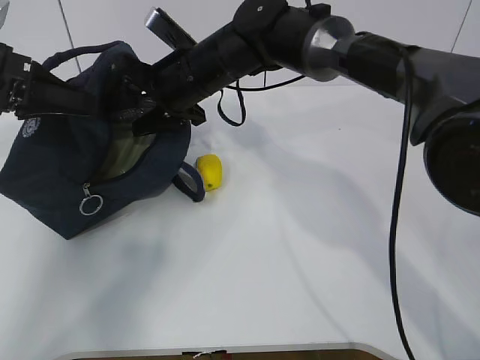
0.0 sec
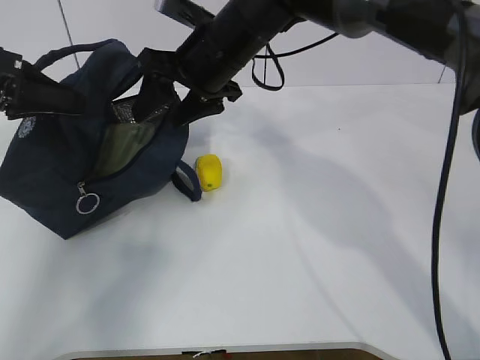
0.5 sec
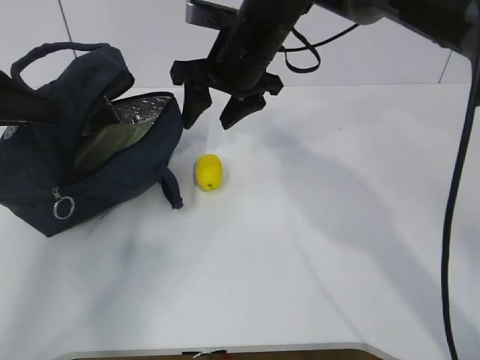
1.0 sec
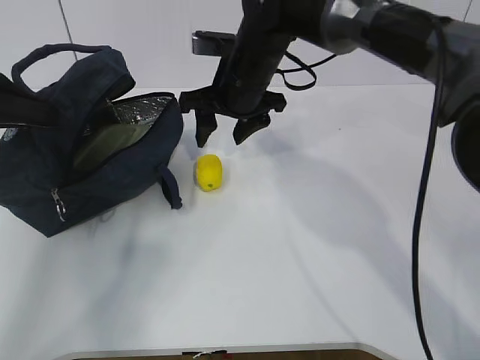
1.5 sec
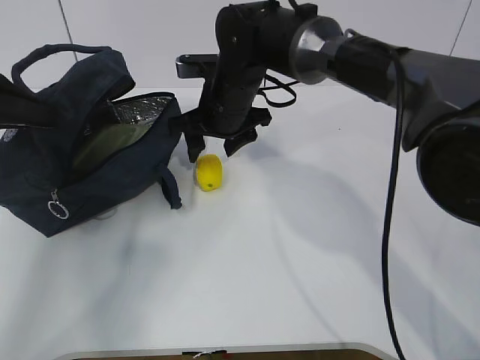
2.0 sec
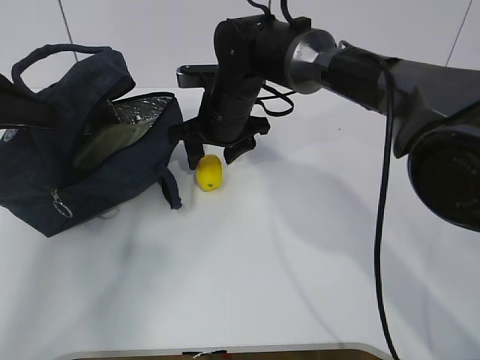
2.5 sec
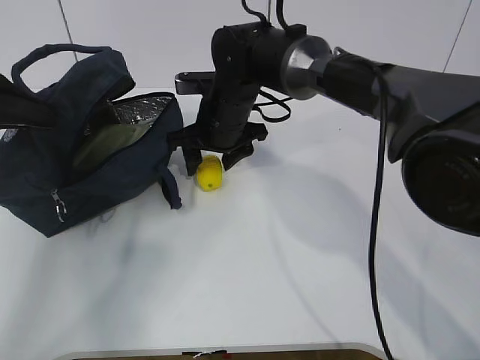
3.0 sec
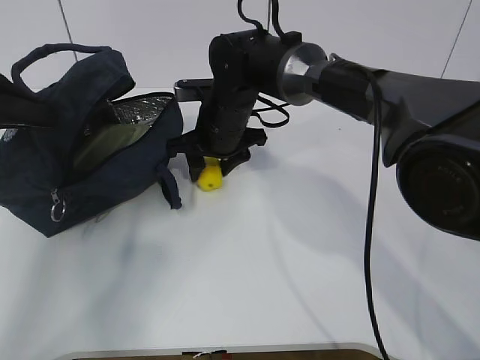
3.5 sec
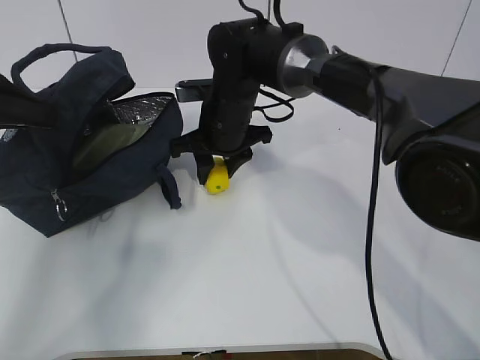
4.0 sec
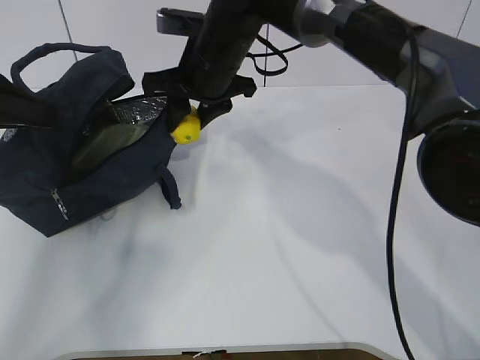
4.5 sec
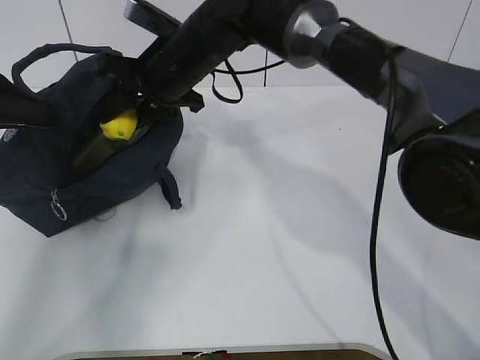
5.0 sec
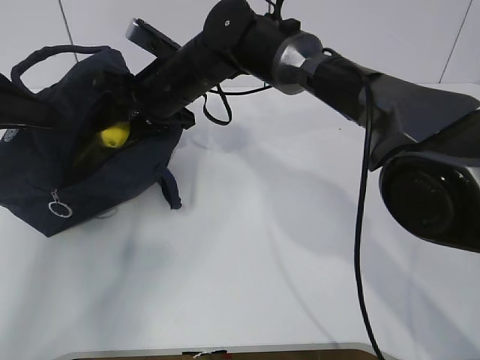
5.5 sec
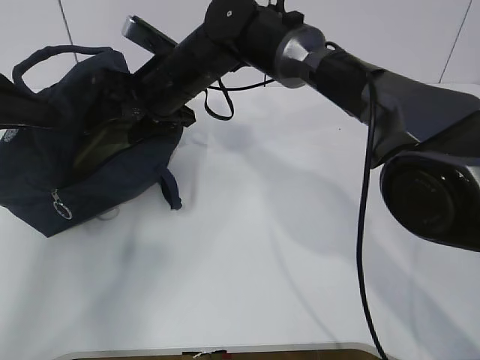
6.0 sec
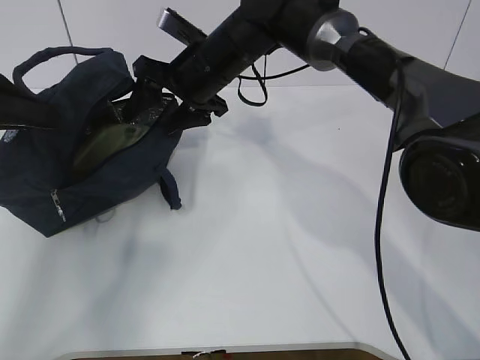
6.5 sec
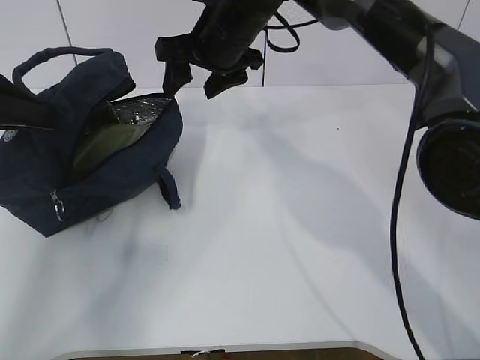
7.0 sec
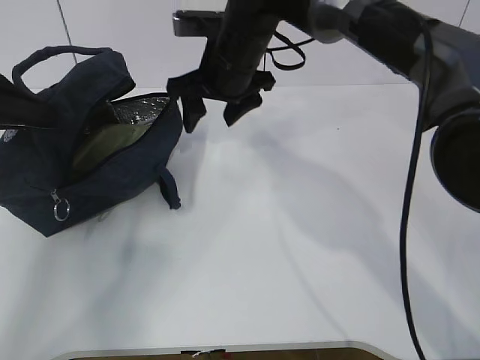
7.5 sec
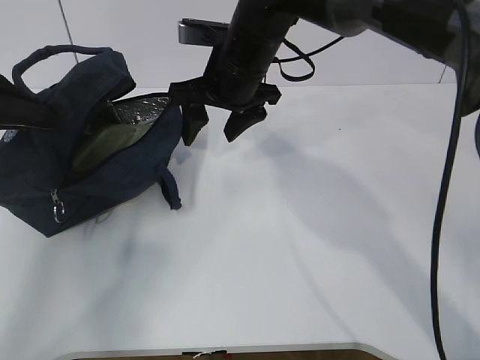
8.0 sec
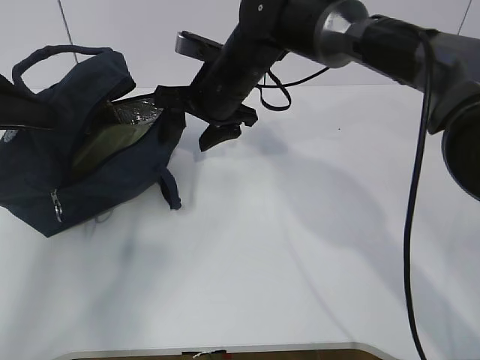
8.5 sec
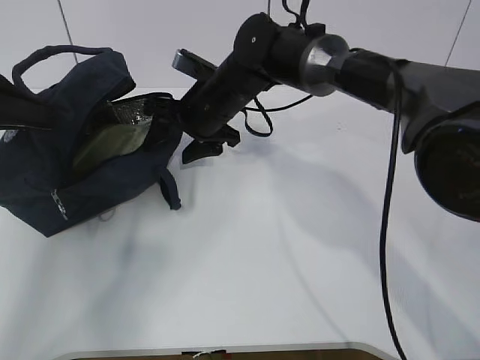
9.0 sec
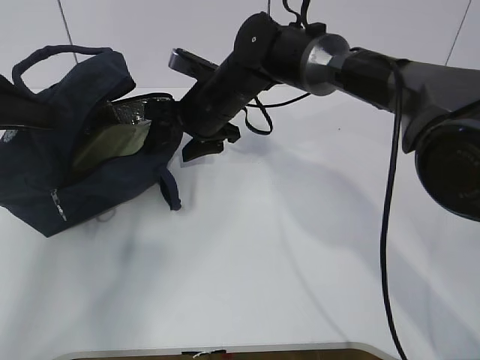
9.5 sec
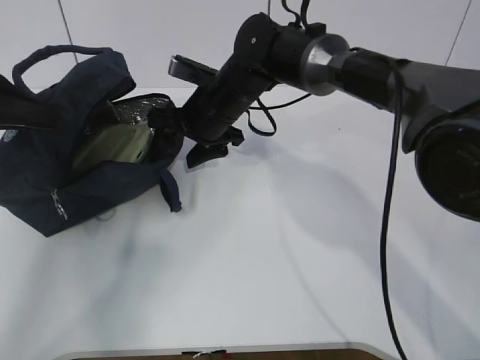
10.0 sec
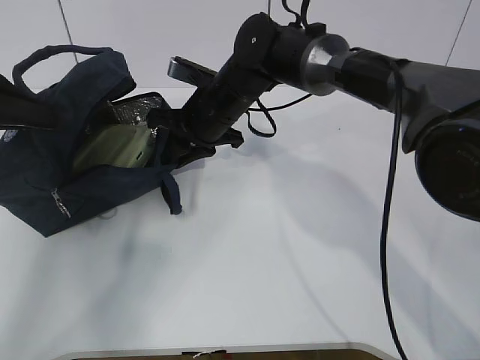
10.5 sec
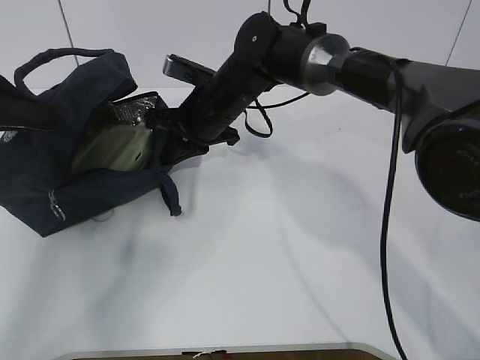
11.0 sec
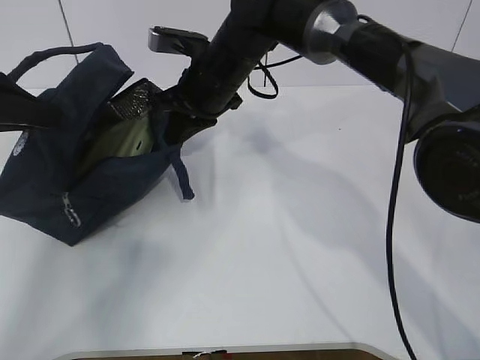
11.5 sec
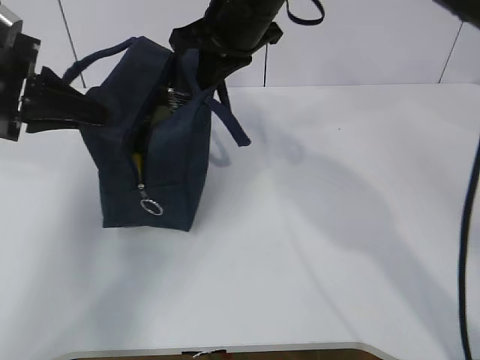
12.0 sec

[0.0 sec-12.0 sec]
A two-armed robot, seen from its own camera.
Step, 0.0 sec to 4.0 sec: Grab the lunch bag with your right hand.
Step, 4.5 sec to 6.5 sec: Stand the lunch bag upright with your right hand.
2.0 sec to 4.0 sec: There are only small adjustments of the grippers.
4.0 sec to 6.0 sec: The right gripper moves to the left and upward, some 5 cm, and opens its fingers.
6.0 sec to 8.0 sec: The right gripper is displaced to the right by some 5 cm.
8.0 sec to 10.0 sec: The right gripper heads downward, covering some 5 cm.
10.0 sec to 12.0 sec: The right gripper goes about 15 cm upward, and closes up, while the left gripper heads to the right, covering some 5 cm.

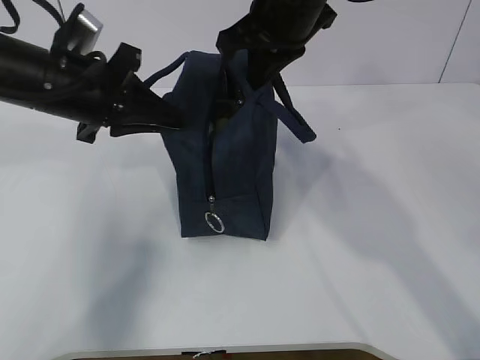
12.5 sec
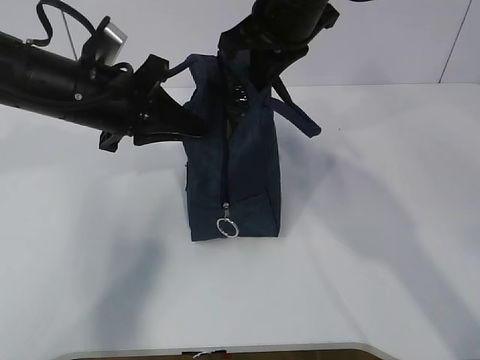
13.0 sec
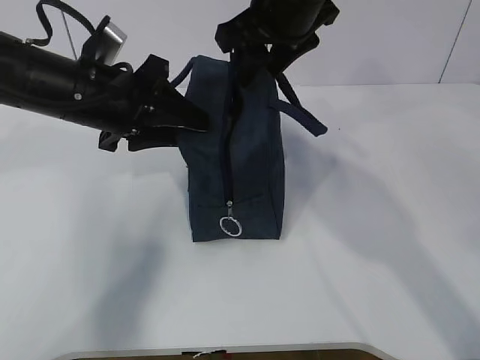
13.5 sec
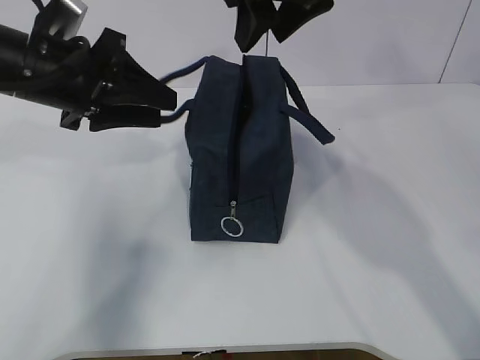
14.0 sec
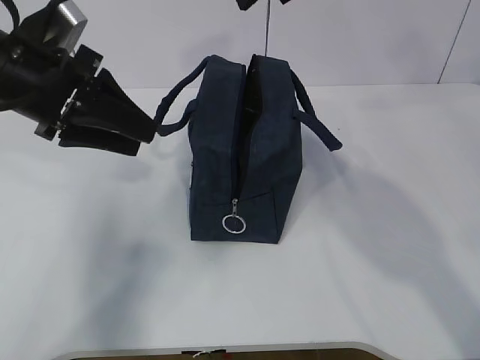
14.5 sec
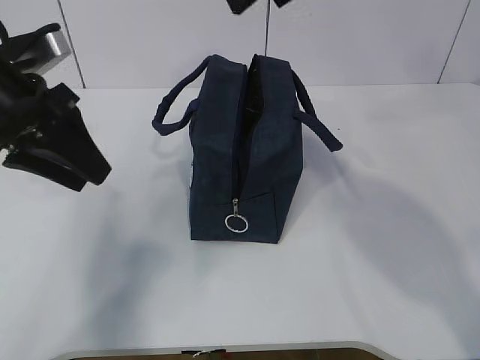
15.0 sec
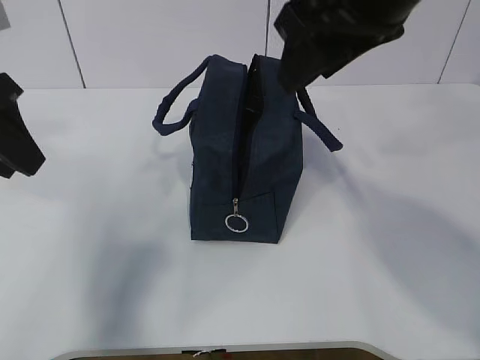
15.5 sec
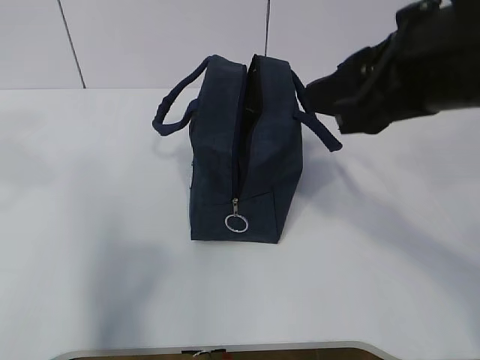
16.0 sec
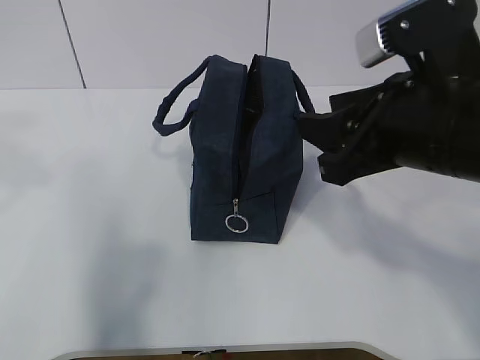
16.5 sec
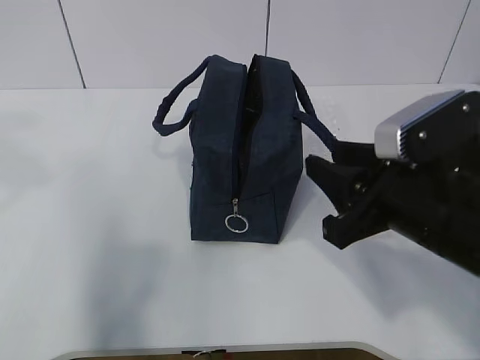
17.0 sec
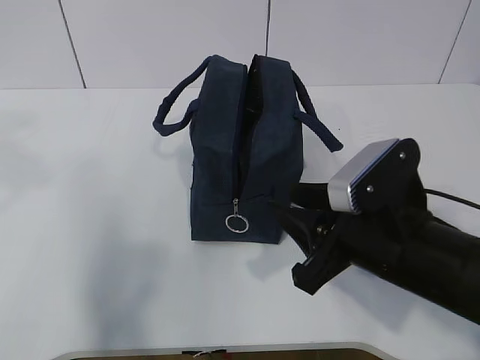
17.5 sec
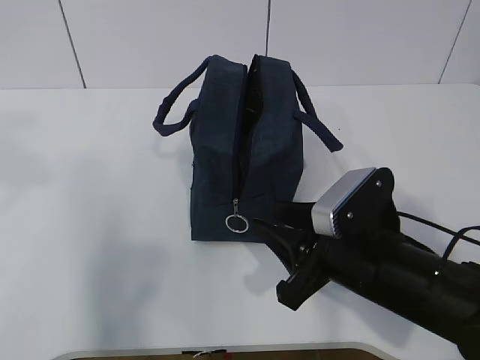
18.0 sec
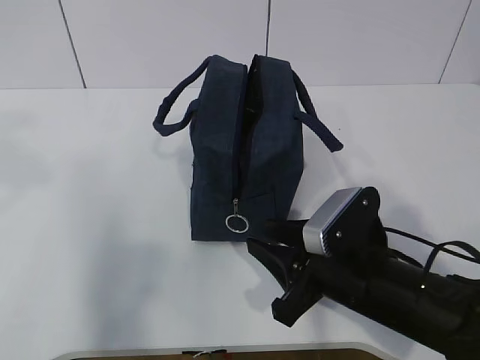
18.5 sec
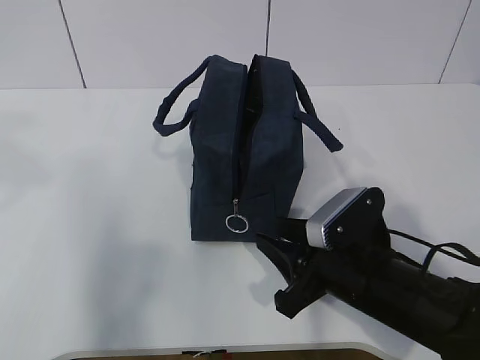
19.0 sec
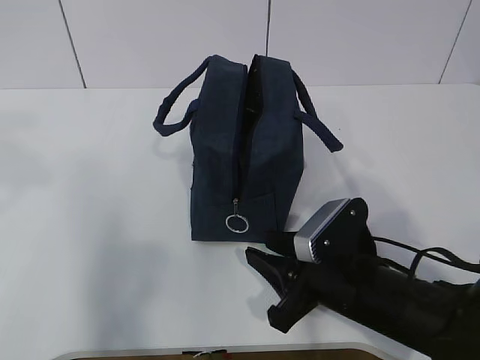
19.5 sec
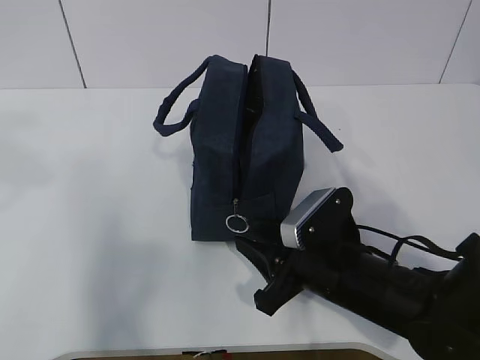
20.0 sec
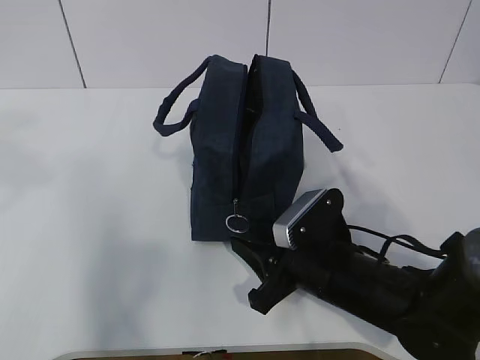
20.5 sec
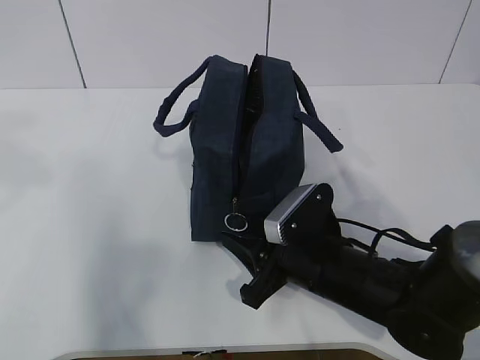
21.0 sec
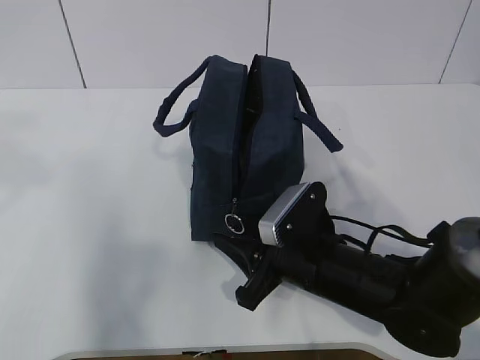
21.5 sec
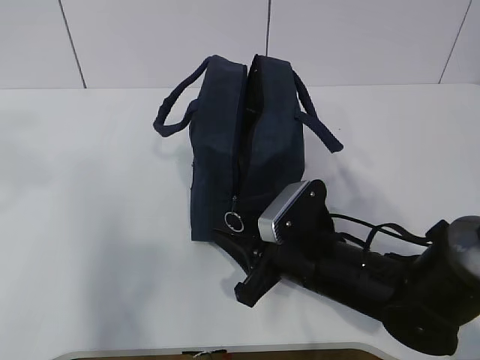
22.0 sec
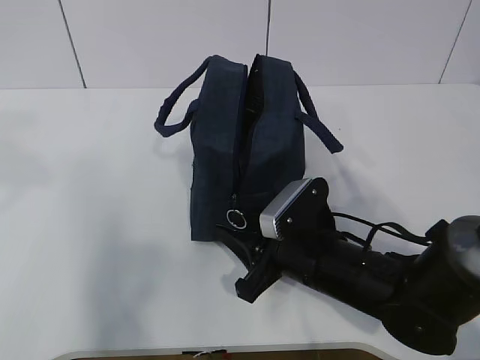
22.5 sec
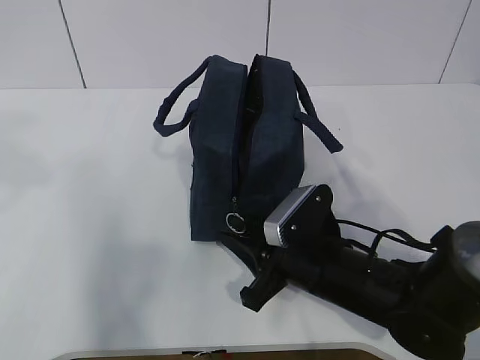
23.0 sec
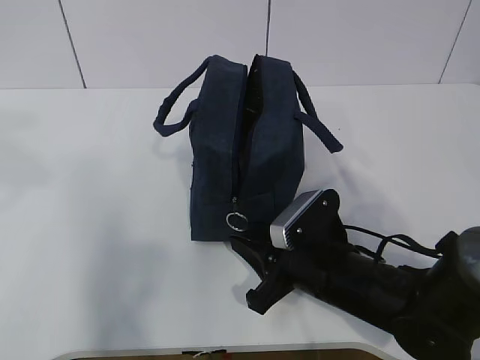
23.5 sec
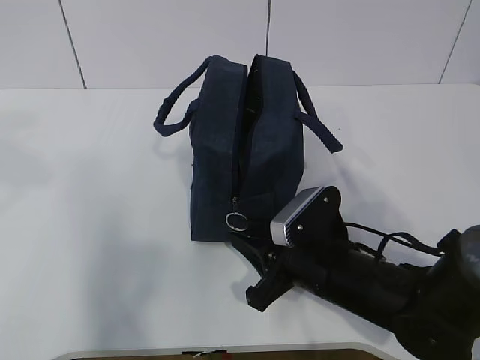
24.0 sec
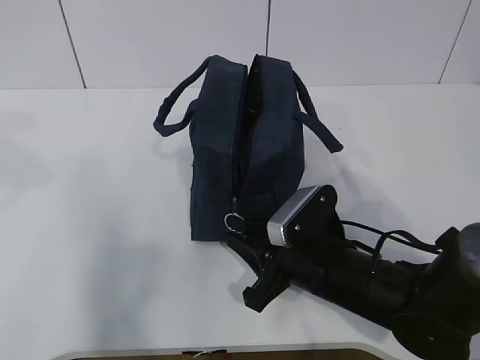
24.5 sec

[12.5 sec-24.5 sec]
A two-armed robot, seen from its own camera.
12.5 sec to 14.5 sec: The left gripper opens its fingers; the right gripper shifts some 10 cm upward, and opens its fingers.
14.5 sec to 16.5 sec: The left gripper shifts about 20 cm backward, upward and to the left. The right gripper shifts approximately 20 cm downward, backward and to the right.
16.5 sec to 18.5 sec: The right gripper heads downward, covering roughly 15 cm.
18.5 sec to 24.5 sec: The grippers move only a little.

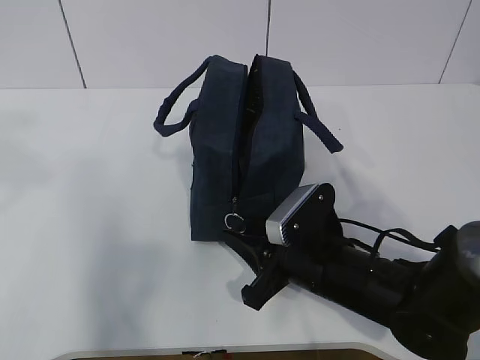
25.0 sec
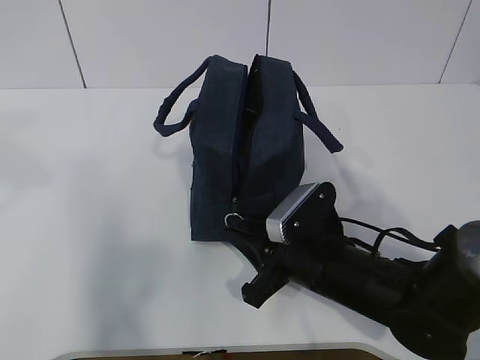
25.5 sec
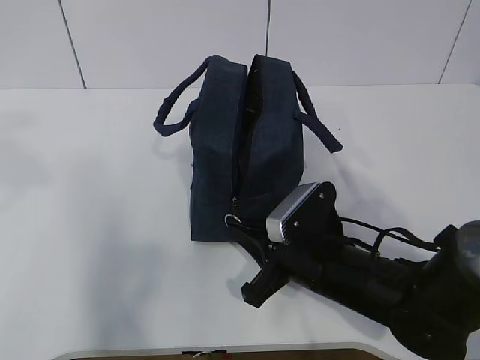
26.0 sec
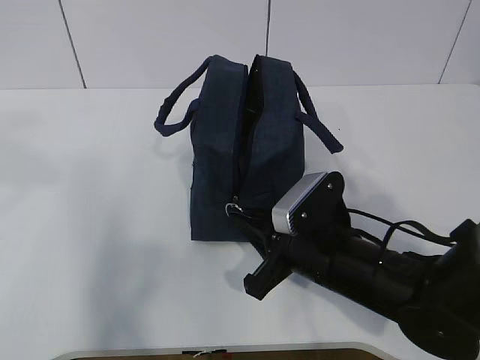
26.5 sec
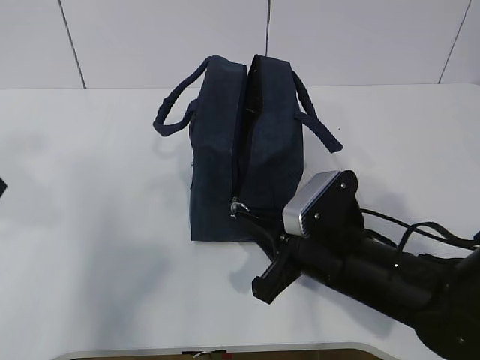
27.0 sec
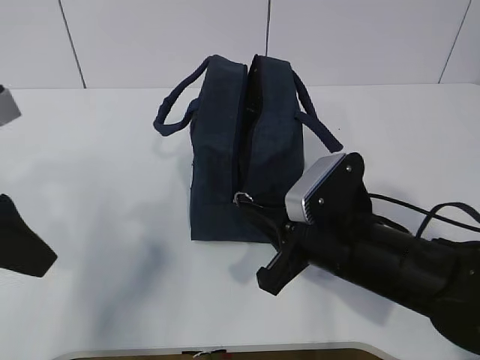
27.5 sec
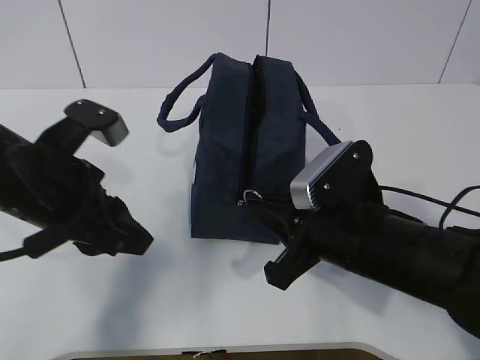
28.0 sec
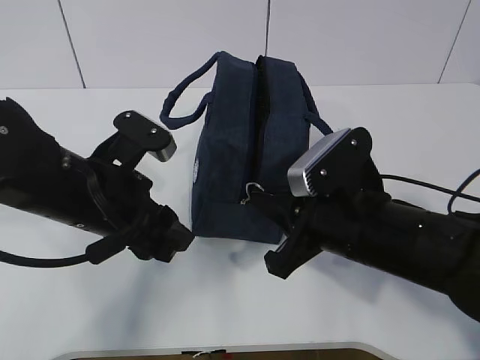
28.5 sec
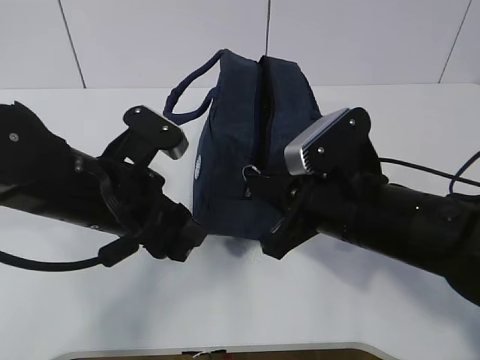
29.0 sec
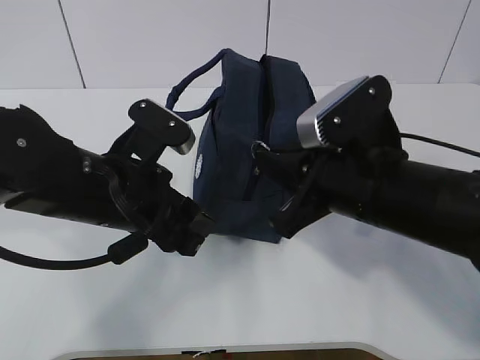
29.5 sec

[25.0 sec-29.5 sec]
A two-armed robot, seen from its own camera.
Step, 25.0 sec to 27.0 sec: Grab the lunch bag with your left hand.
25.0 sec to 27.0 sec: The left gripper goes roughly 5 cm downward, while the right gripper closes up.
27.0 sec to 29.5 sec: The left gripper travels downward and to the right by roughly 20 cm, and opens its fingers. Meanwhile the right gripper travels upward by some 10 cm.
